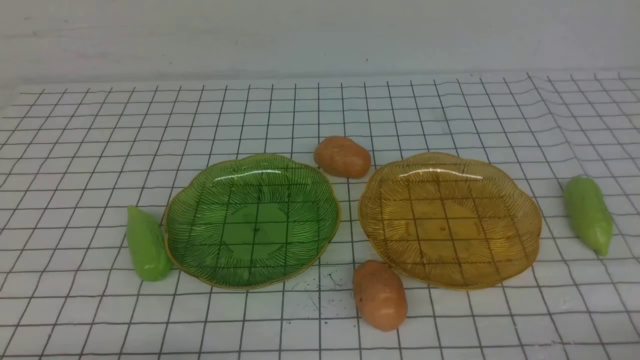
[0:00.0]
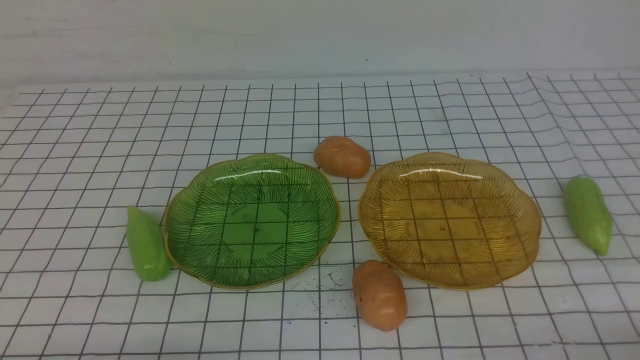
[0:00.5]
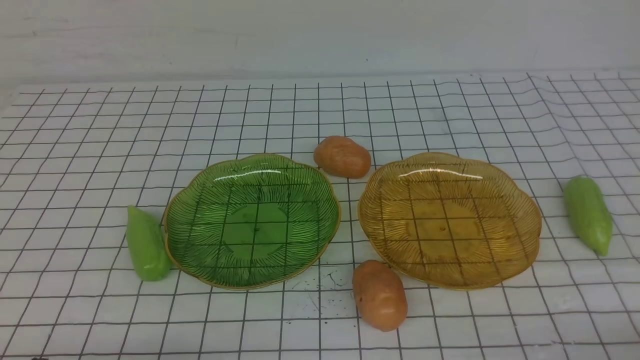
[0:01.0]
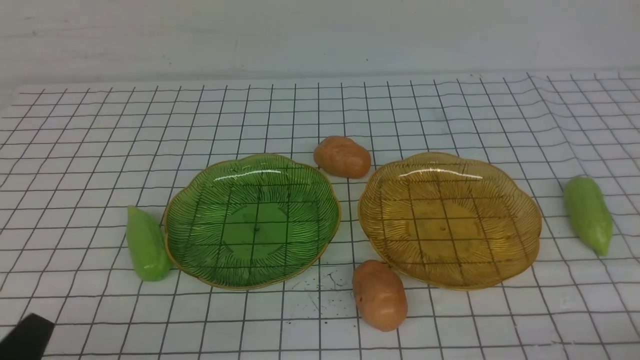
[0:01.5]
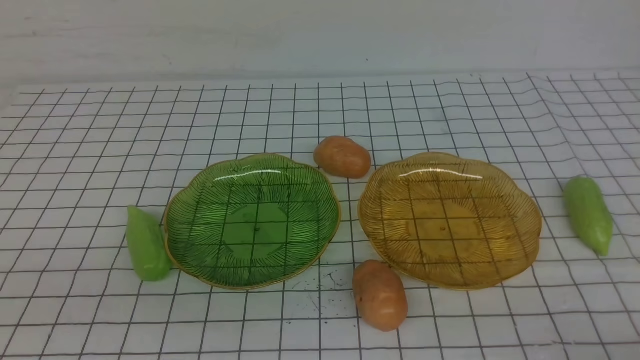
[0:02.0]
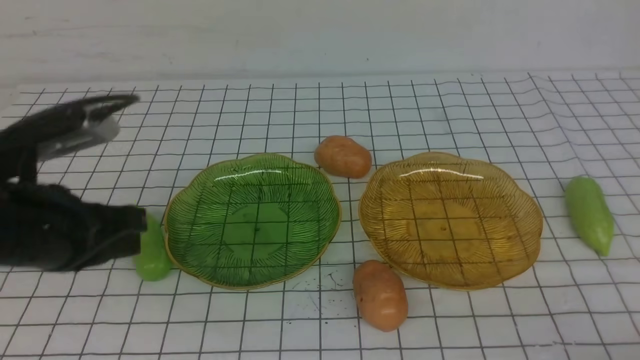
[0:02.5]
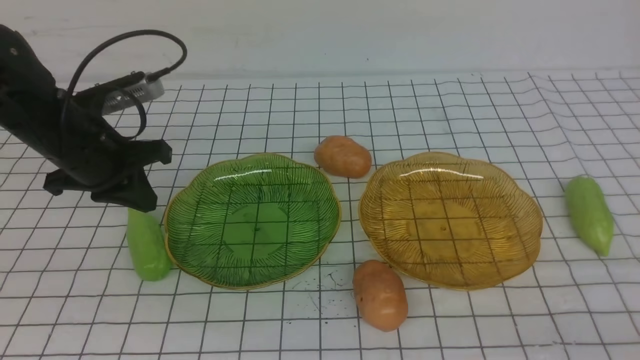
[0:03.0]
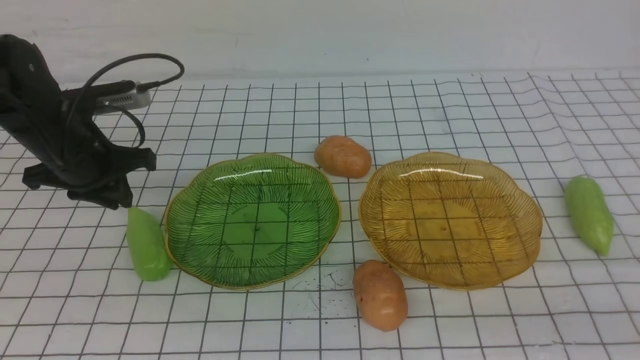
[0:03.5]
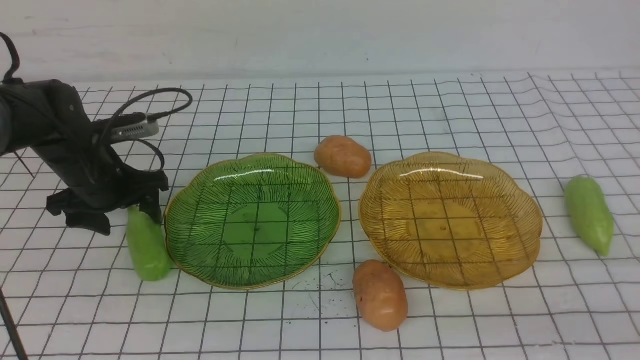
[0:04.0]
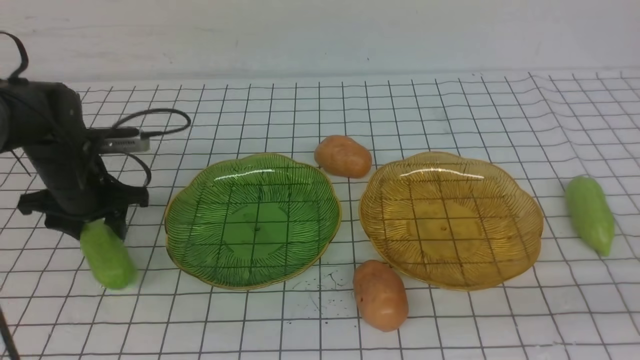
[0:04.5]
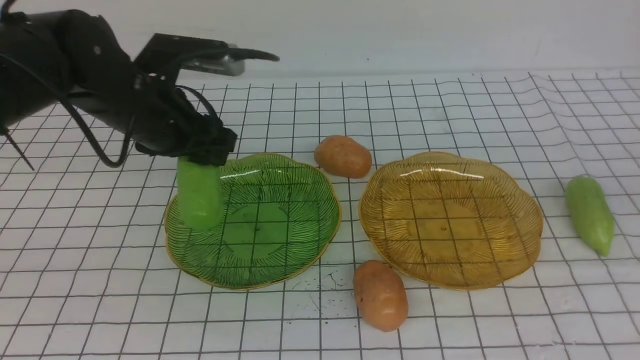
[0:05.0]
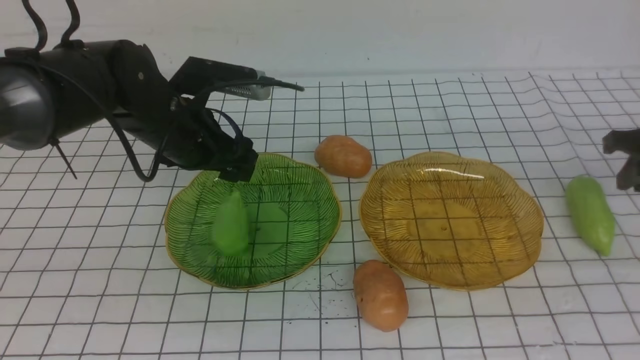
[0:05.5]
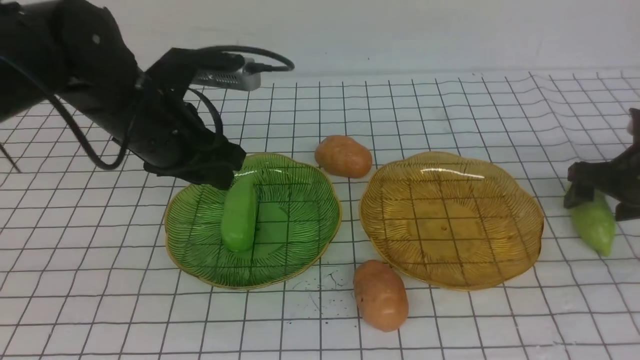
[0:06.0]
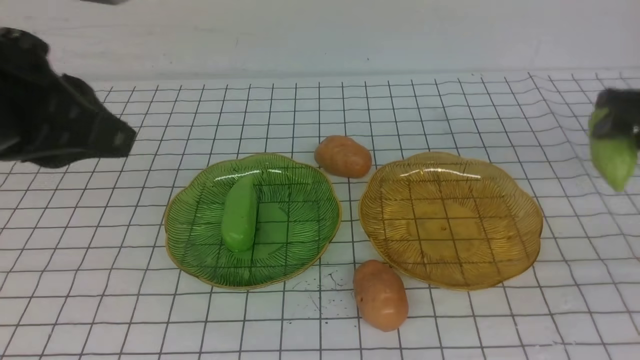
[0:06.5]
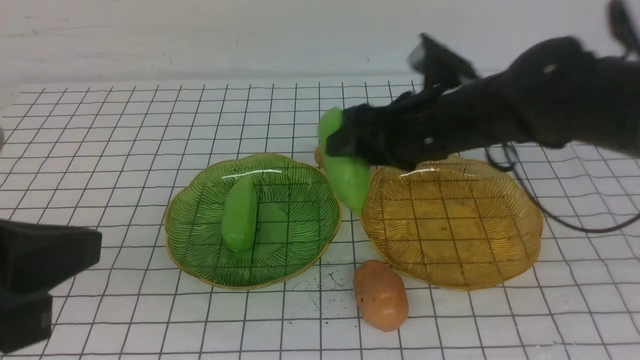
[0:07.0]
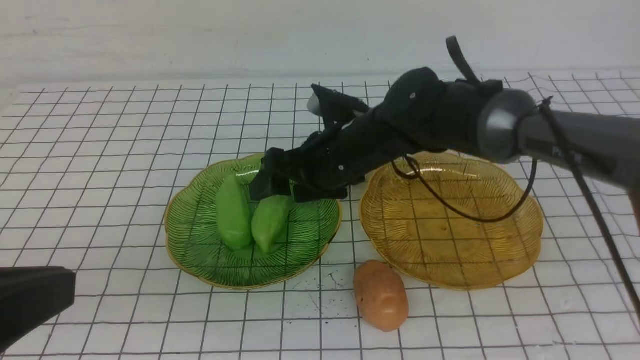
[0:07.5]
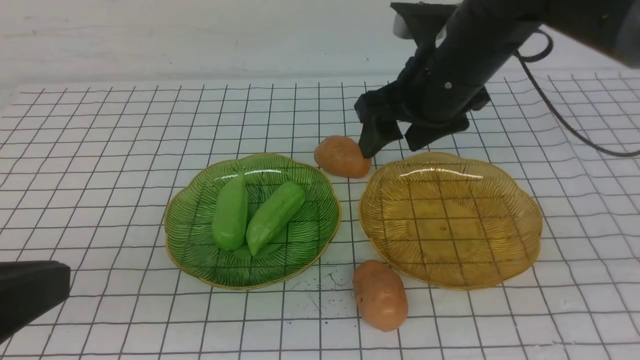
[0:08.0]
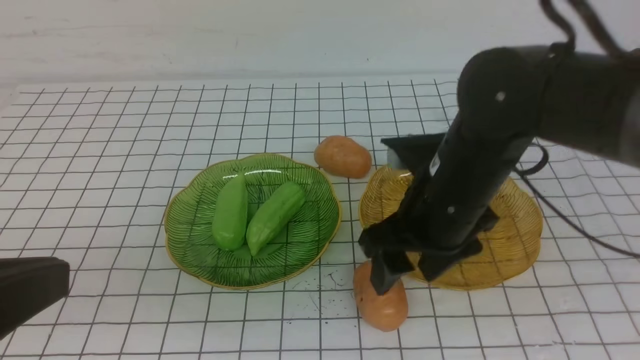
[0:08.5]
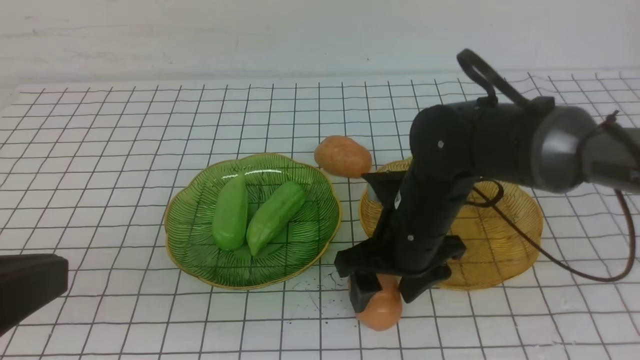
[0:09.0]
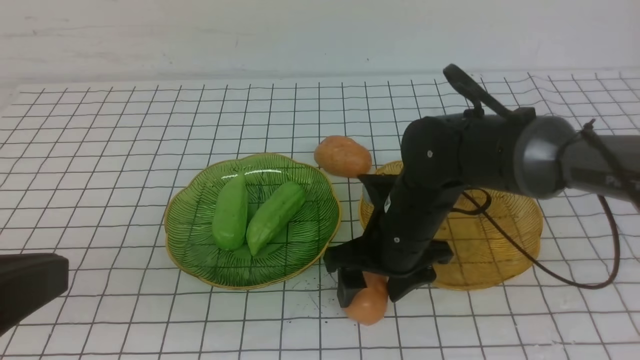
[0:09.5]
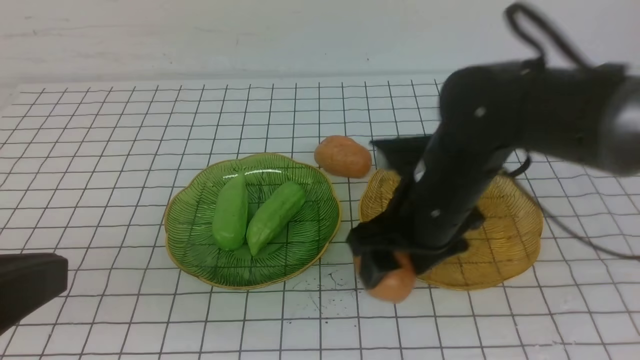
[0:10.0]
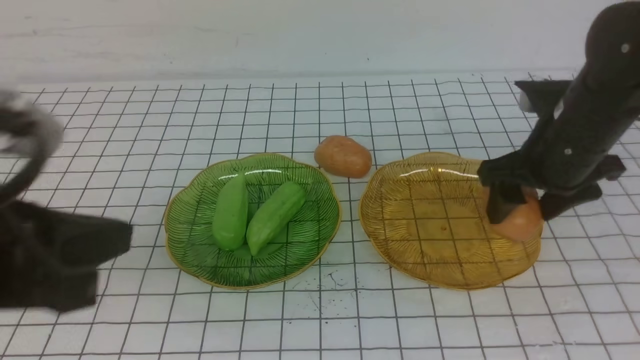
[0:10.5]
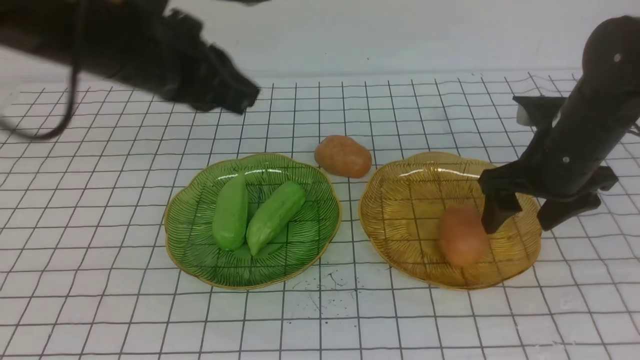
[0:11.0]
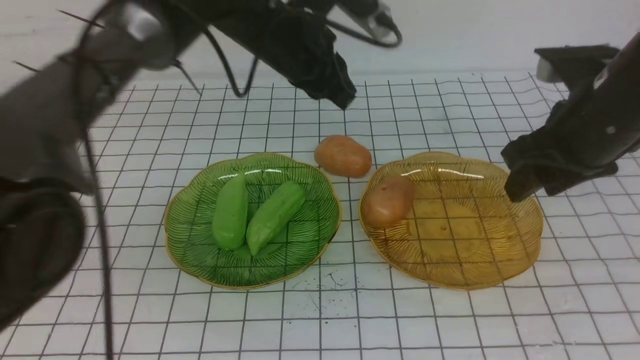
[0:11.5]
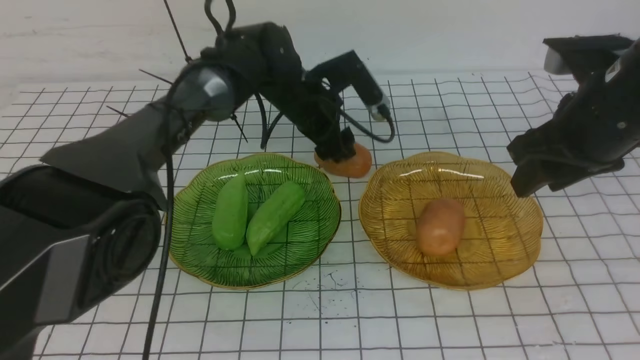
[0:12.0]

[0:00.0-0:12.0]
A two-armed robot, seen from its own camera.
Step, 0:00.0 to 0:05.0: use the left arm to grab a chayote and put it into the left plate.
Step, 0:06.0 to 0:07.5: use the right arm to grab a chayote and put it into the left plate.
Step, 0:08.0 to 0:10.5: Grab a potato with your right arm and put it on the right plate.
0:02.0 to 0:04.0: The right gripper moves upward, about 10 cm. The left gripper moves forward, about 30 cm, and opens its fingers.
0:04.0 to 0:06.0: The left gripper goes roughly 20 cm upward, to the right and backward, and closes, while the right gripper travels forward and downward by about 40 cm, and opens its fingers.
0:06.0 to 0:08.0: The right gripper travels to the left and upward by roughly 30 cm. Meanwhile the left gripper goes some 25 cm backward, and closes.
0:08.0 to 0:10.0: The right gripper shifts roughly 5 cm downward.
0:10.0 to 0:12.0: The right gripper moves to the right and upward, approximately 15 cm, while the left gripper goes approximately 50 cm forward and to the right, and opens its fingers.

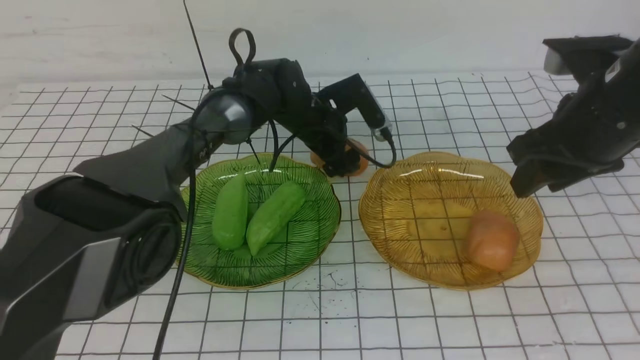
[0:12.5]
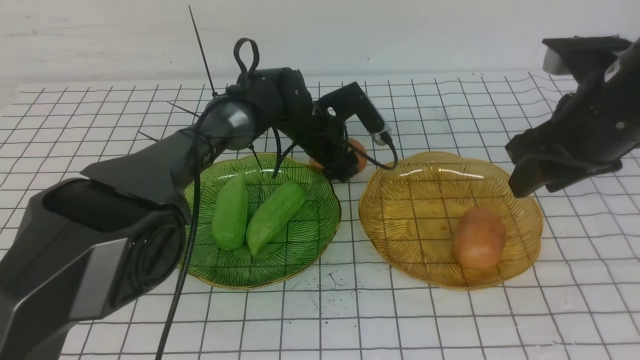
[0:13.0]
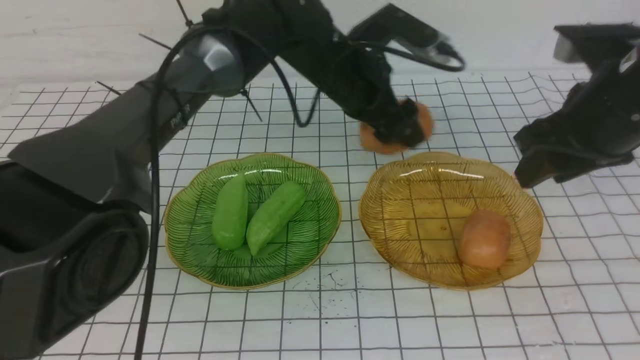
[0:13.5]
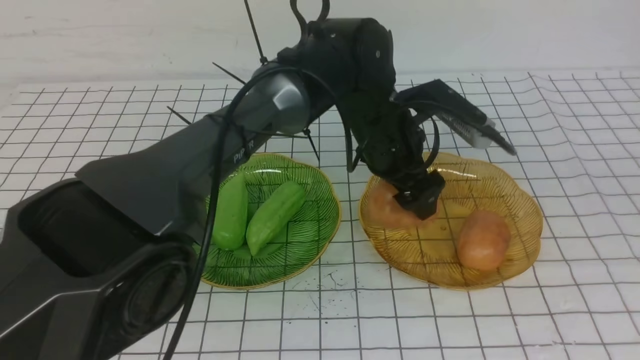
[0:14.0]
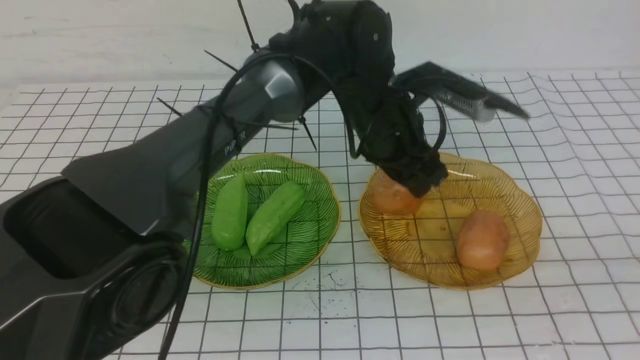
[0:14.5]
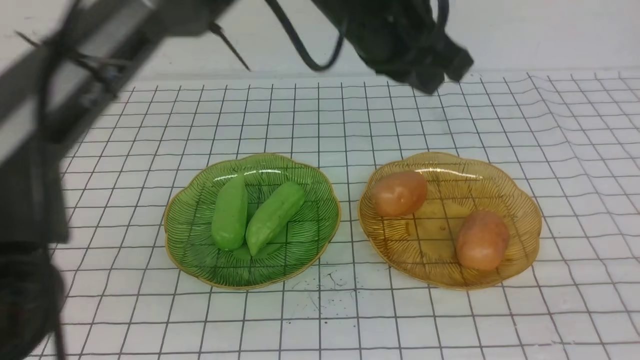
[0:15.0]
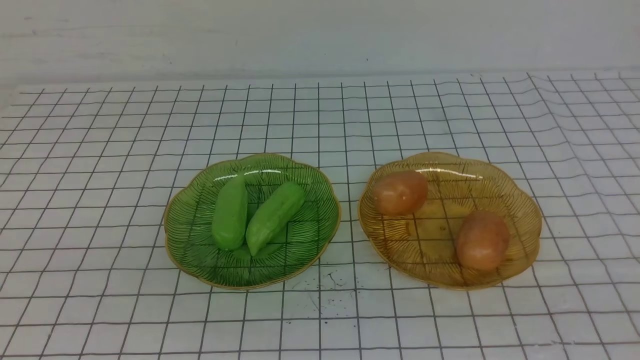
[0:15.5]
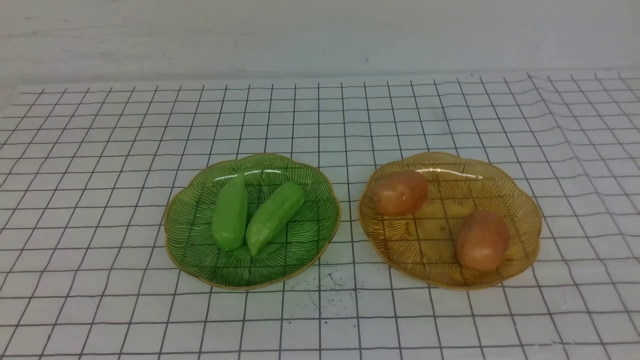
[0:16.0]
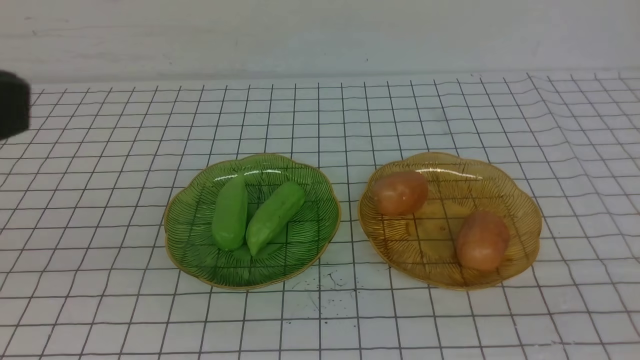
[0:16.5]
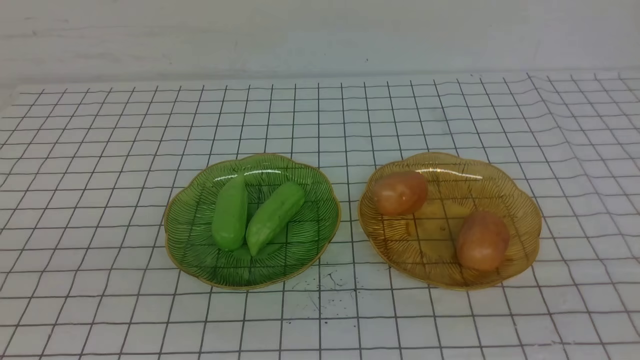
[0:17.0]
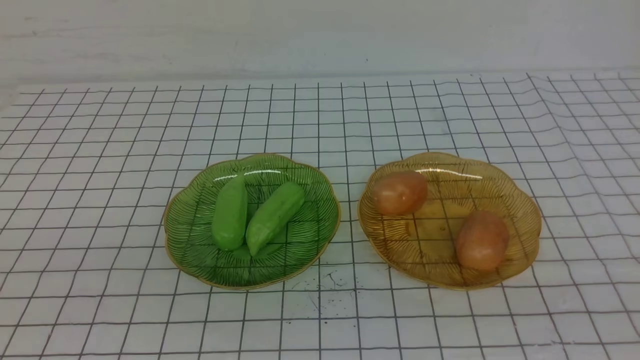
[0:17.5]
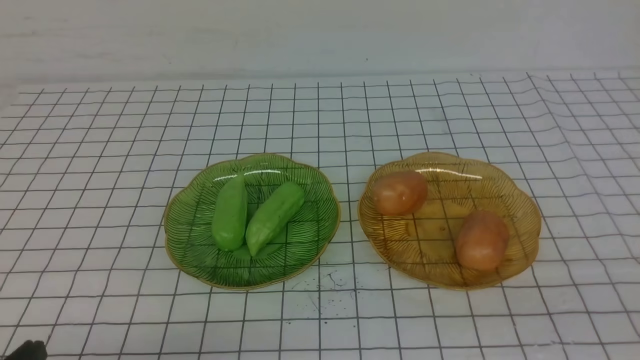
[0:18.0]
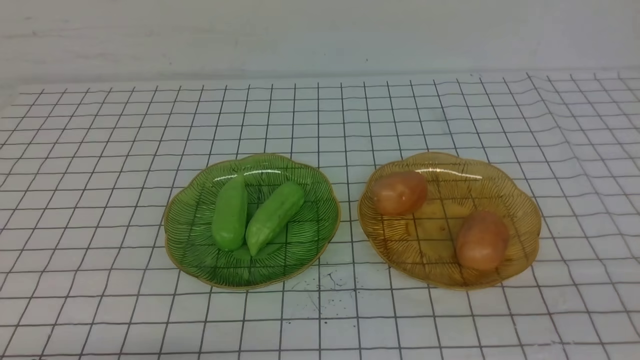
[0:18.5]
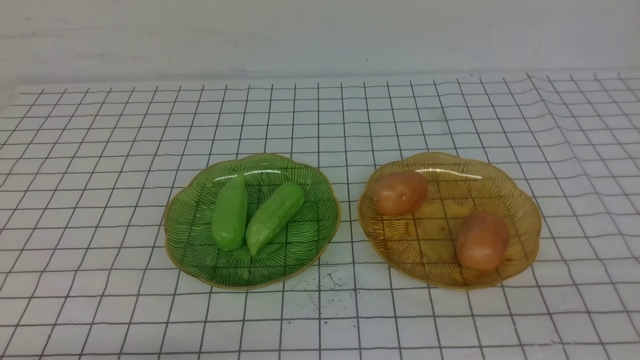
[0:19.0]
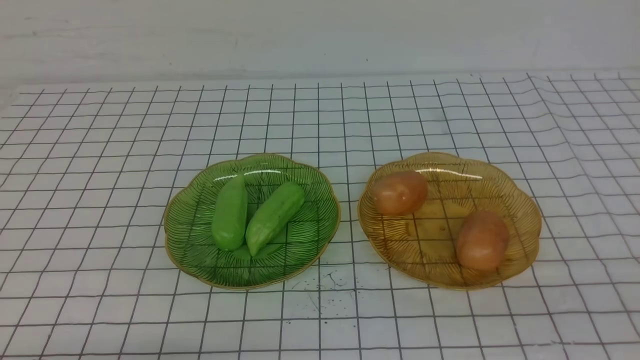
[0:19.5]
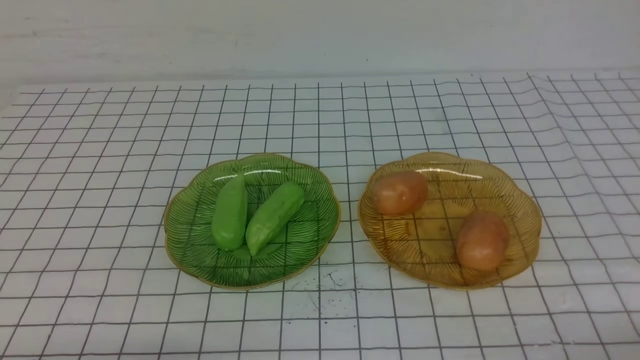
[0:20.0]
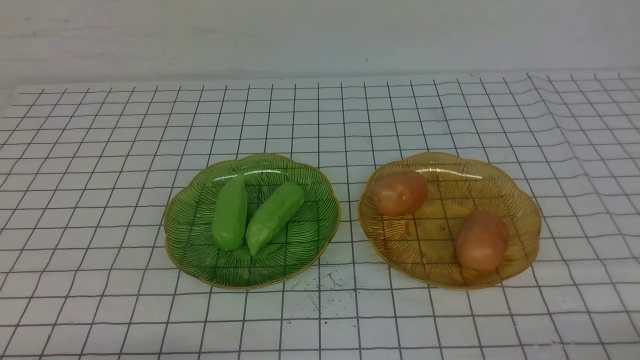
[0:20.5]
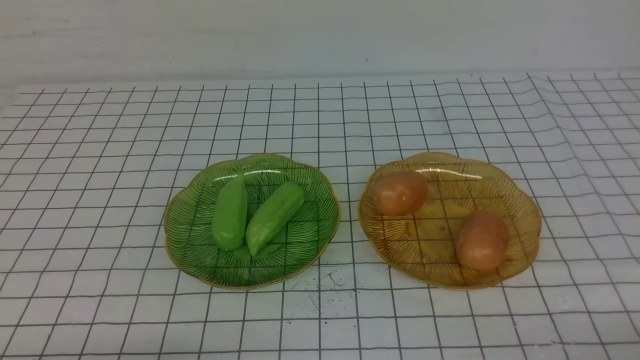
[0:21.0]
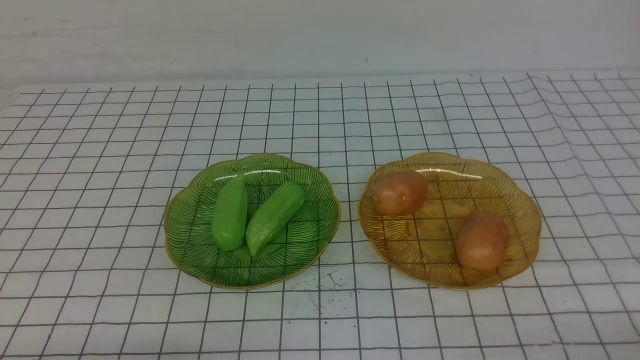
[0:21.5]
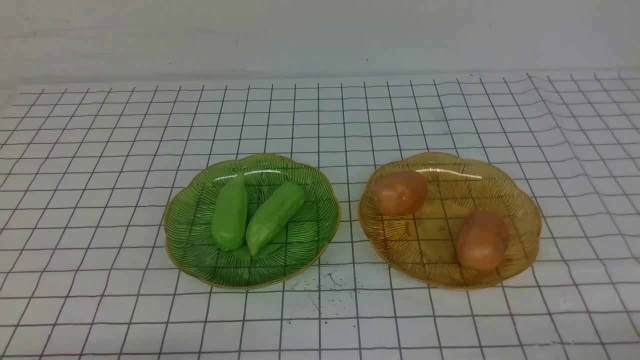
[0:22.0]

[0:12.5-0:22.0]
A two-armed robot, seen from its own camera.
0:12.5 to 0:14.5: The left gripper goes roughly 20 cm backward, upward and to the right, and closes. The right gripper moves backward, about 35 cm.
0:14.5 to 0:16.5: The left gripper travels backward, to the left and upward by some 50 cm, and closes its fingers.
0:16.5 to 0:18.0: The left gripper goes roughly 30 cm downward.
0:20.0 to 0:22.0: Neither gripper changes place.
